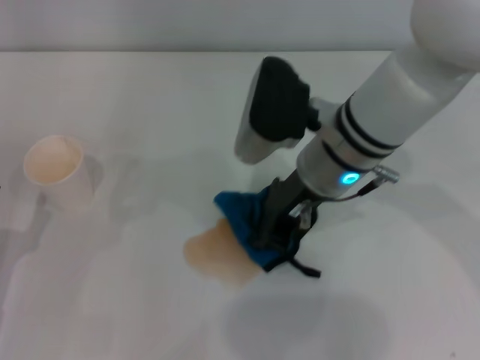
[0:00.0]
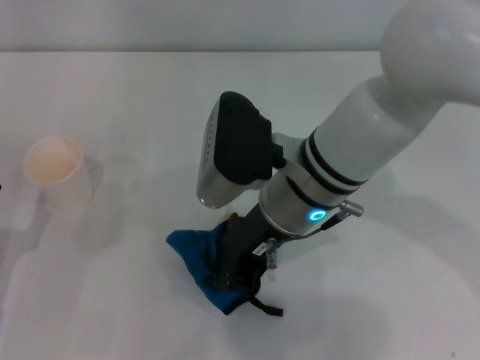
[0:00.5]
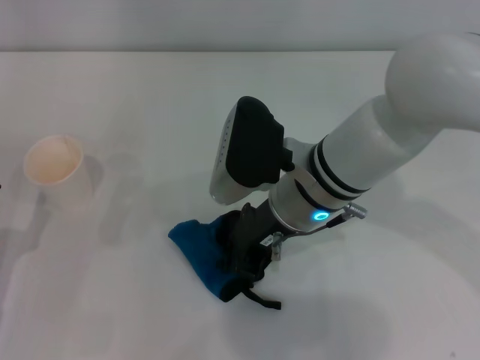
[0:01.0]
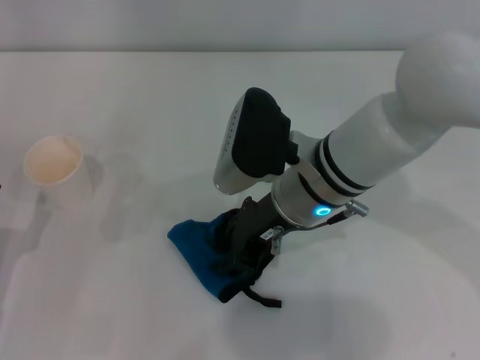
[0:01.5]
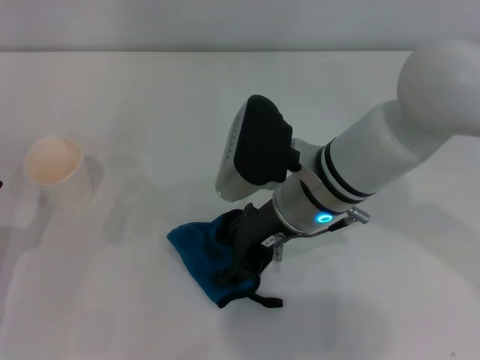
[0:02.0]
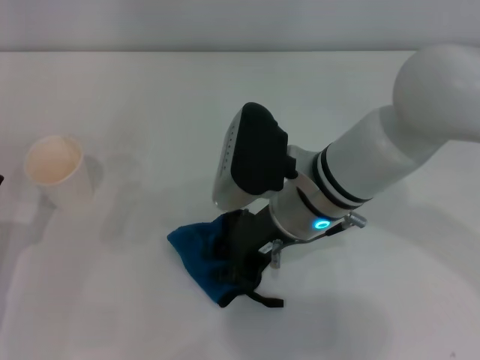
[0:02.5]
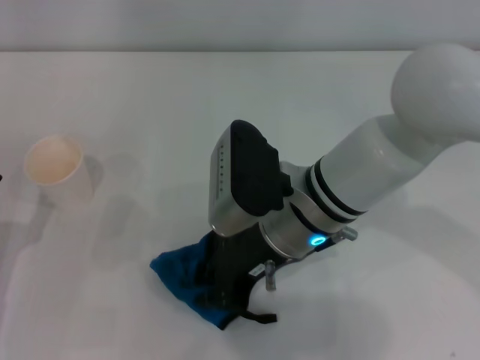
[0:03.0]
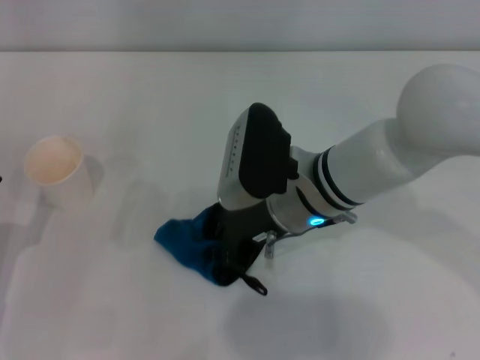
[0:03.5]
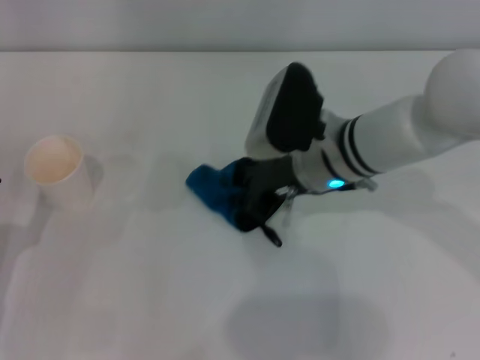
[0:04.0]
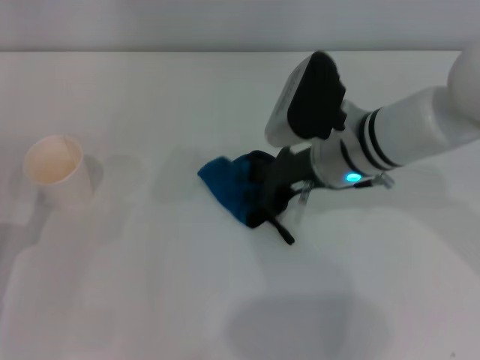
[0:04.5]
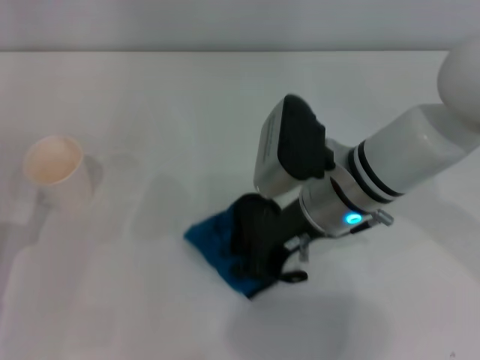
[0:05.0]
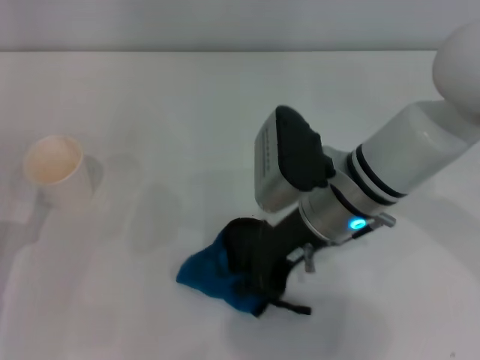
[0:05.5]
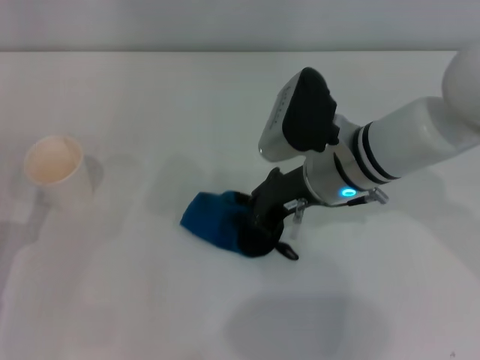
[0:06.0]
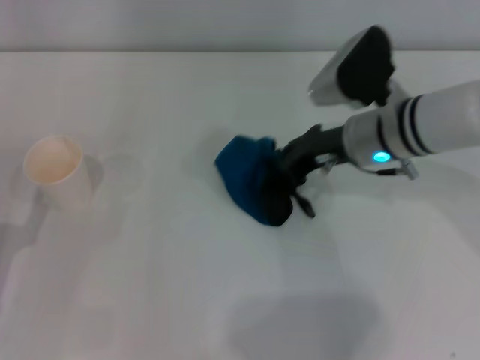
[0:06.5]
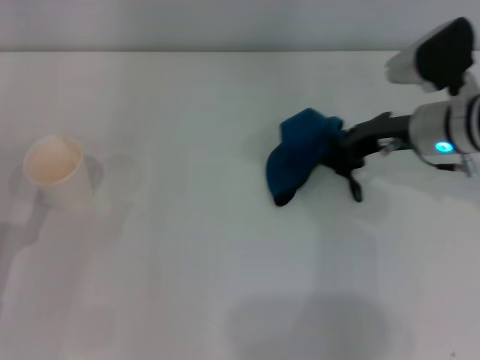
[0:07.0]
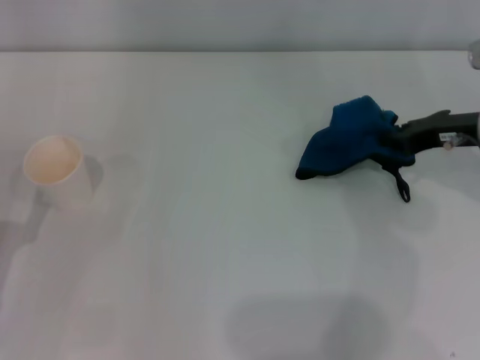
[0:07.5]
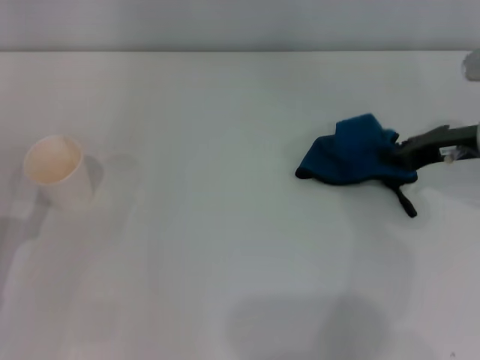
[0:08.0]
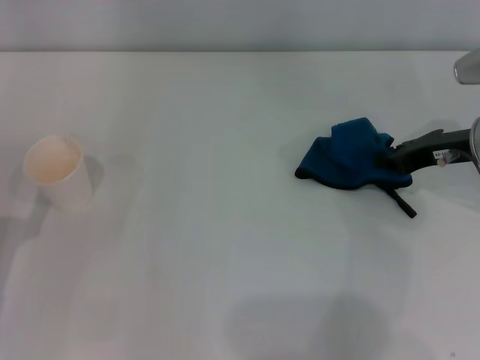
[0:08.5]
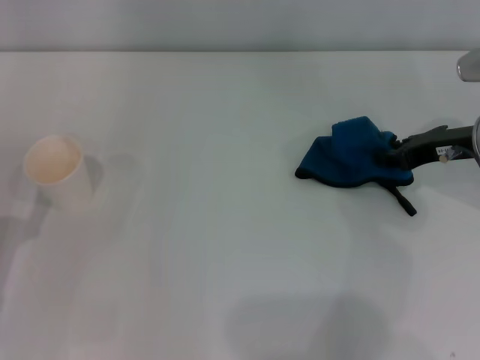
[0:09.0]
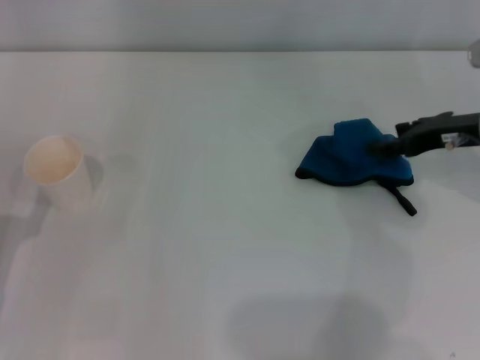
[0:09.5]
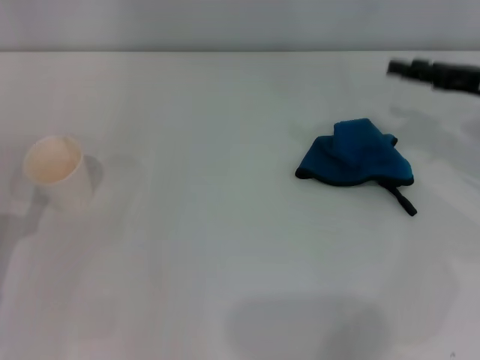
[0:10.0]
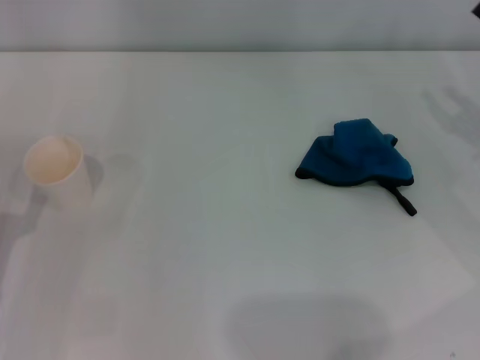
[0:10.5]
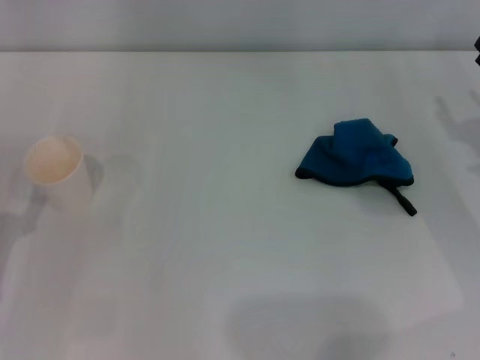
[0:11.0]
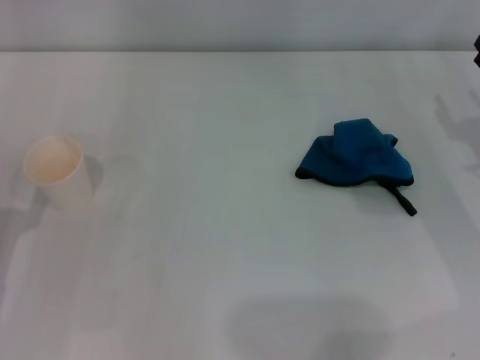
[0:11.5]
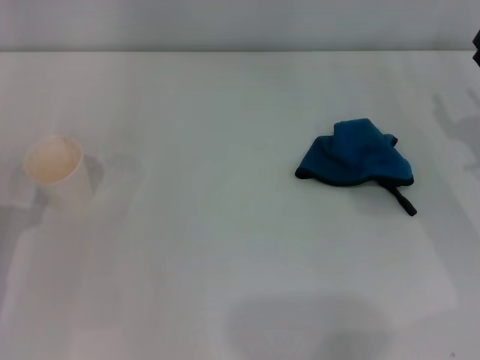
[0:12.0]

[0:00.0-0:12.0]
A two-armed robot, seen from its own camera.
Step, 0:00.0 to 0:08.0: Wipe the stains off the table with the right gripper.
Step, 0:08.5 to 0:09.0: Place the rag on the table with the right gripper.
0:00.0 to 0:02.0: The right gripper opens its fingers.
0:02.0 to 0:04.0: The right gripper changes place by about 5 cm, and closes up.
0:06.0 to 0:08.0: The right gripper goes roughly 20 cm to the right.
0:08.0 to 0:10.0: The right gripper opens.
0:10.0 to 0:12.0: The right gripper heads downward, covering some 5 cm.

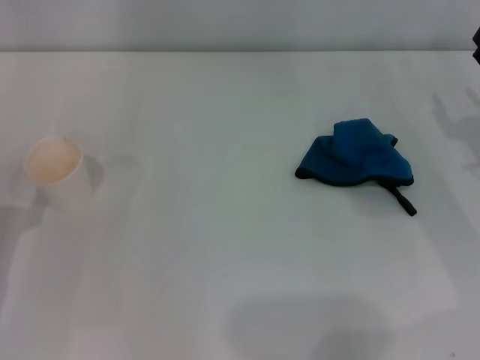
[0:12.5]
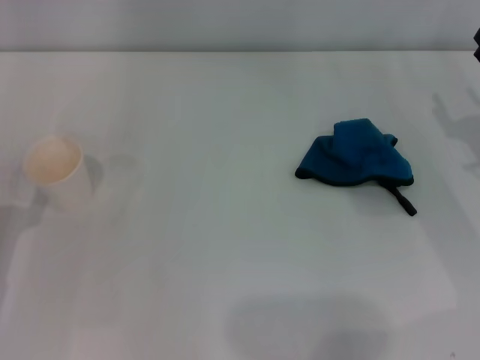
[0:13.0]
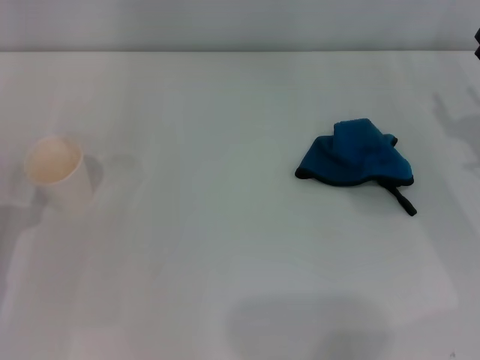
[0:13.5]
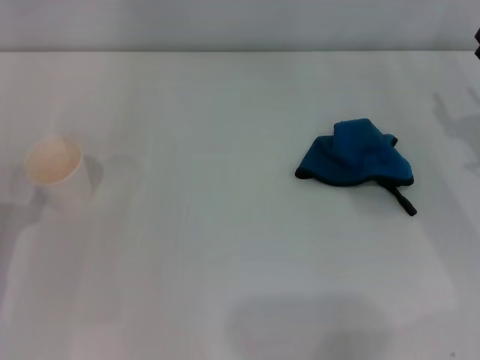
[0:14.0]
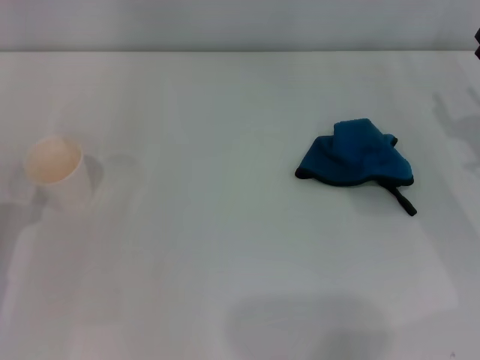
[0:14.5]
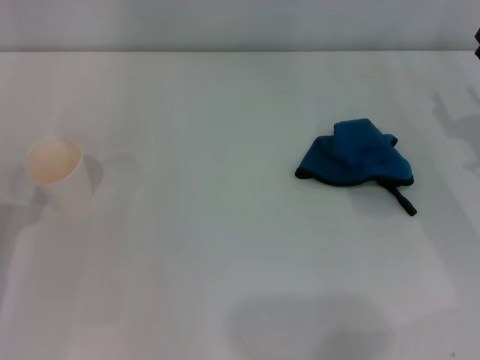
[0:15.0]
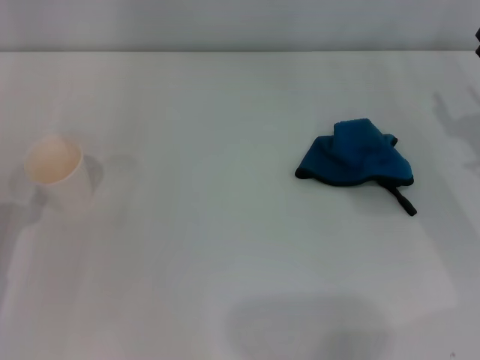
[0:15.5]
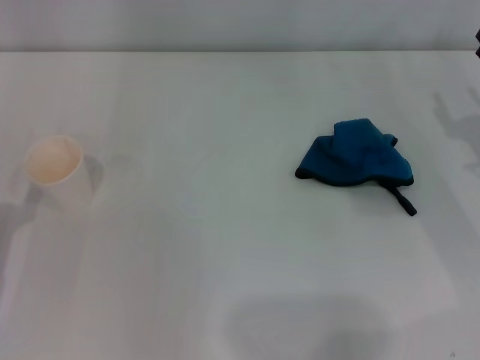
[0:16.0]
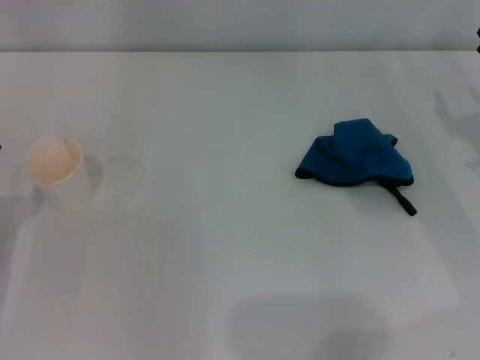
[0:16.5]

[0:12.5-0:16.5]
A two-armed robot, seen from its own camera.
0:12.5 to 0:14.5: Both grippers stay put.
0:14.5 to 0:16.5: The two grippers keep their place.

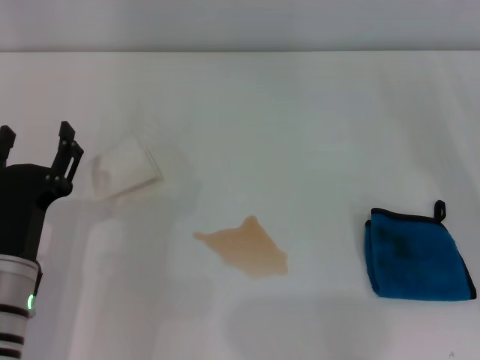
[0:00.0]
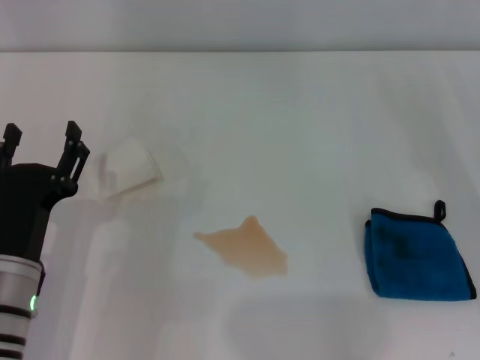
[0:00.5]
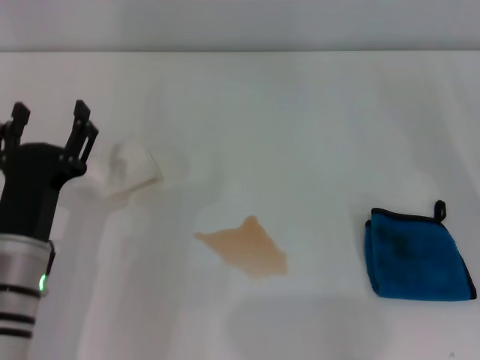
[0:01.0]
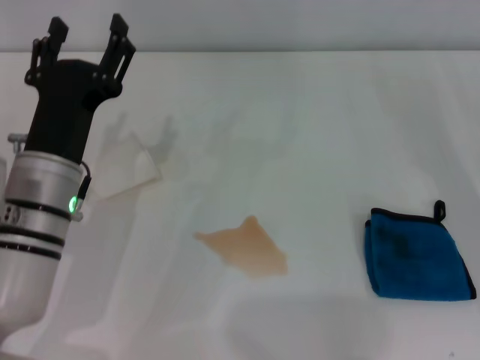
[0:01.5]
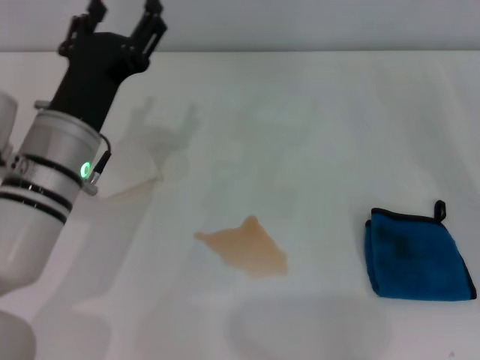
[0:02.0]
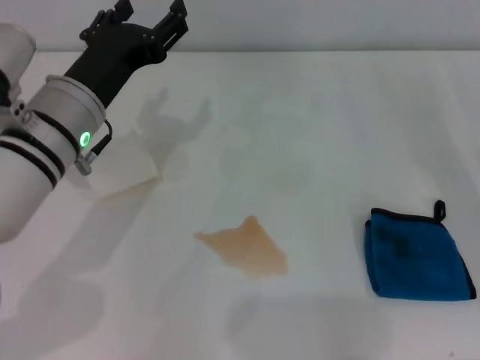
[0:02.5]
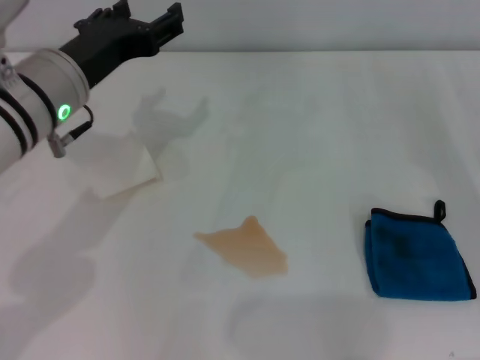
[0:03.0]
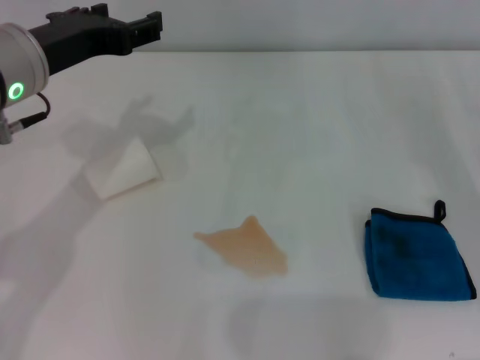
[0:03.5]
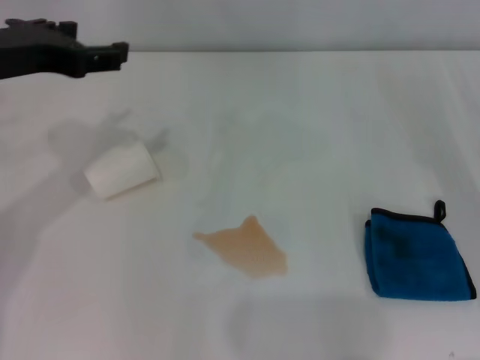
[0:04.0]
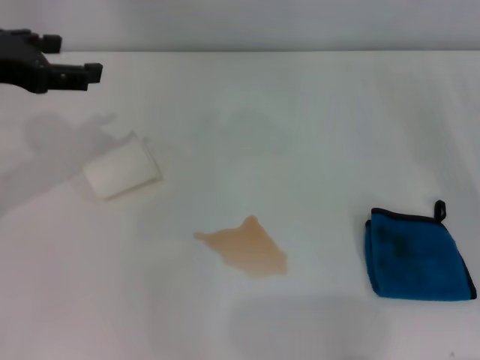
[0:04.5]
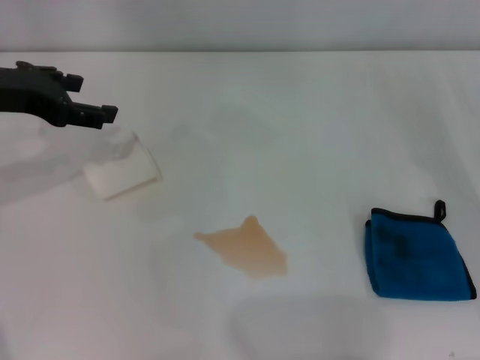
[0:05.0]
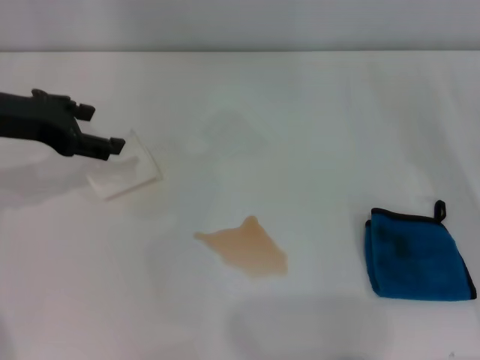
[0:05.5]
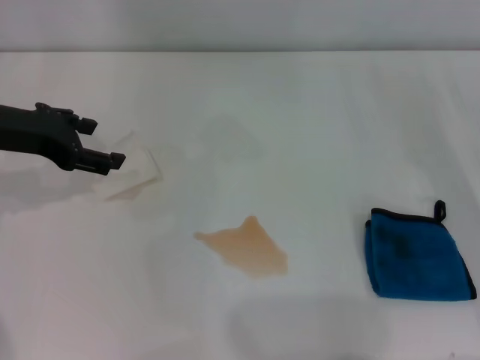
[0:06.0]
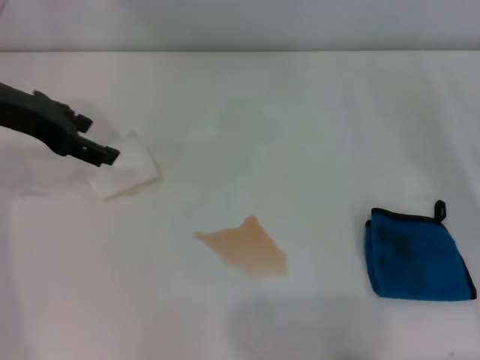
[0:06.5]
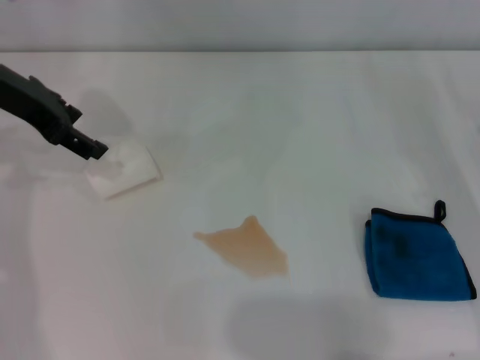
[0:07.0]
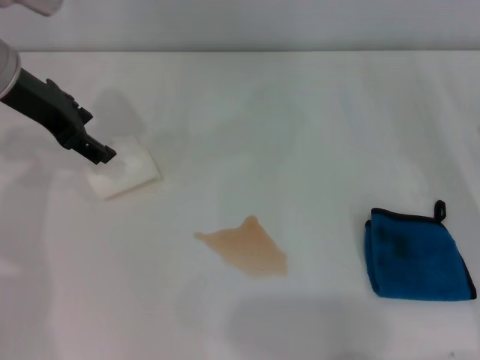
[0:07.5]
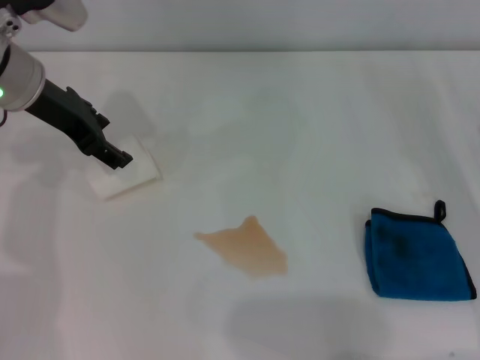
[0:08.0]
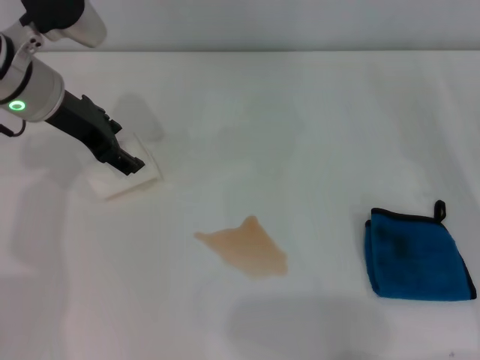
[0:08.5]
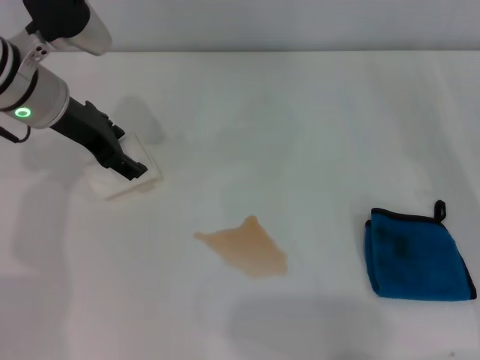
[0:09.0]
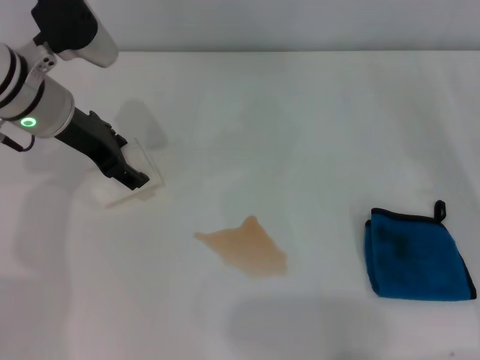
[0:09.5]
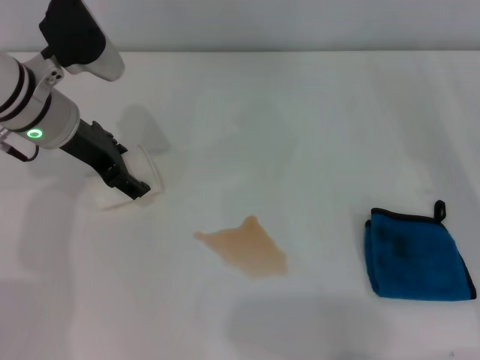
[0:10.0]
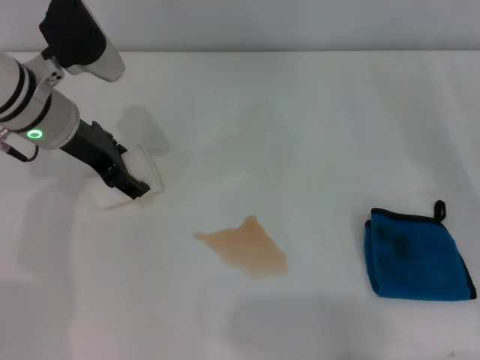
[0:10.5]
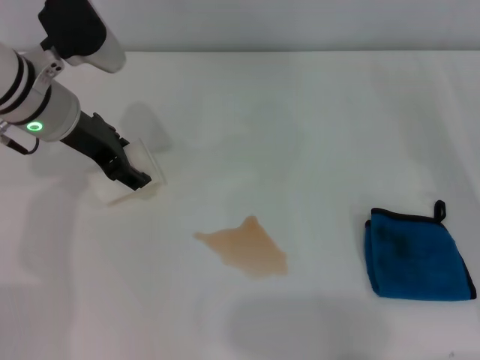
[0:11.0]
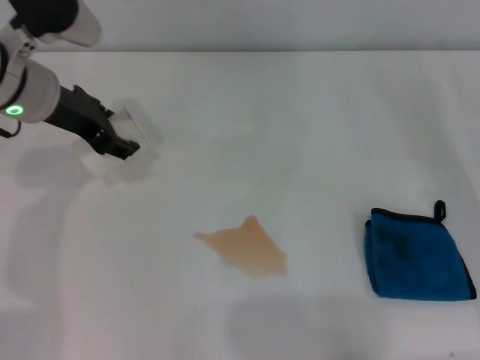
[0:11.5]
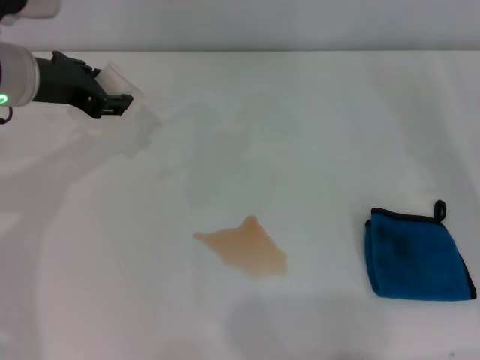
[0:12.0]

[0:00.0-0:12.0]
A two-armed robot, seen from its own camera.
Step, 0:00.0 to 0:10.0: Grasp the paper cup with the left gripper.
0:00.0 to 0:02.0: The left gripper heads forward, upward and to the right, covering roughly 15 cm.
0:02.0 to 0:04.0: The left gripper shifts approximately 15 cm upward and to the left.
0:04.0 to 0:06.0: The left gripper shifts some 5 cm downward.
0:06.0 to 0:08.0: The left gripper shifts approximately 5 cm forward and to the right.
0:08.0 to 0:10.0: The left gripper moves some 5 cm.
0:10.0 to 0:12.0: The left gripper closes up.
